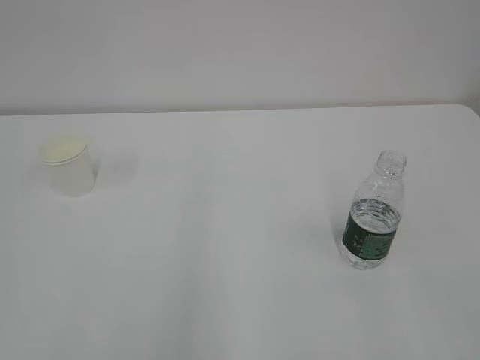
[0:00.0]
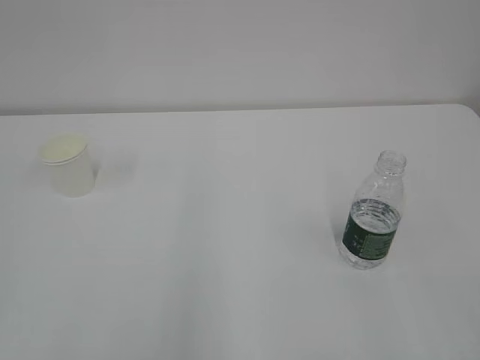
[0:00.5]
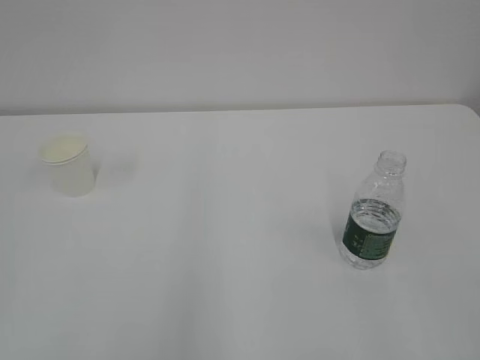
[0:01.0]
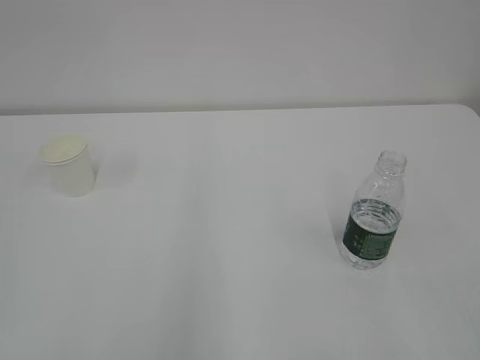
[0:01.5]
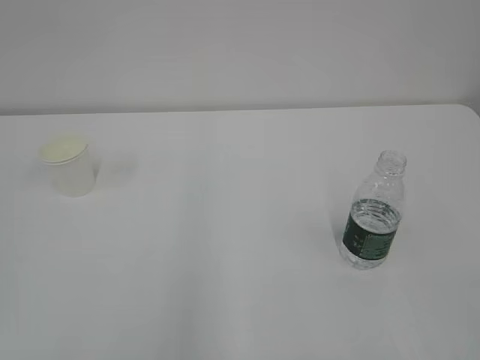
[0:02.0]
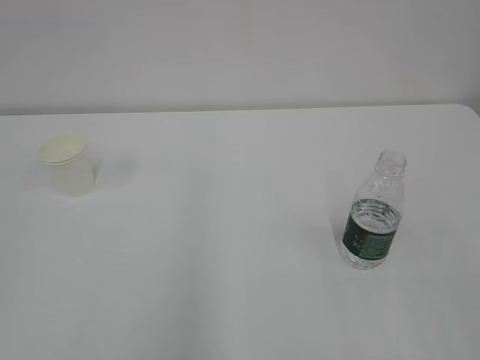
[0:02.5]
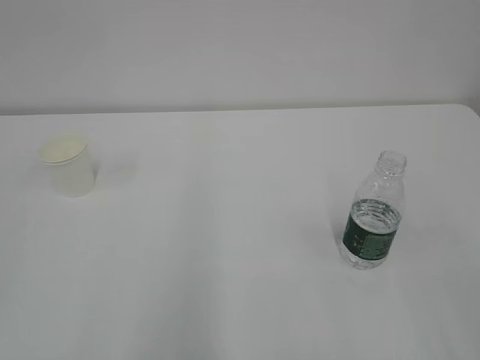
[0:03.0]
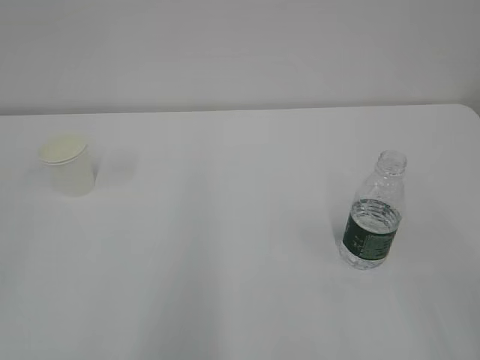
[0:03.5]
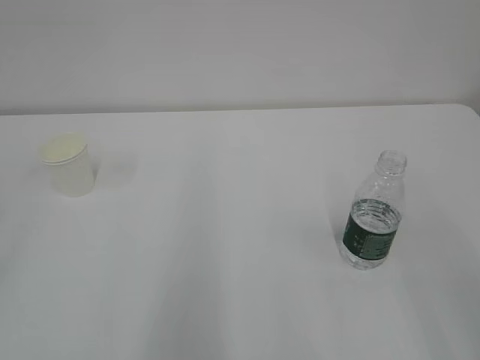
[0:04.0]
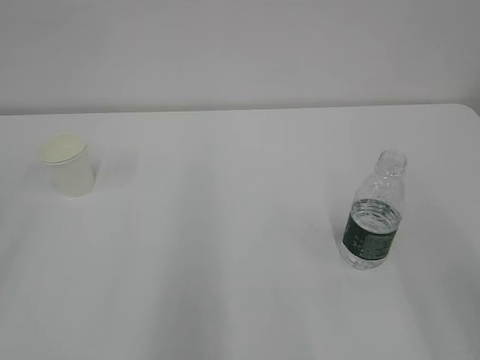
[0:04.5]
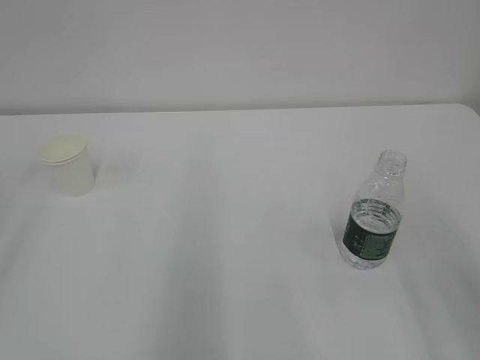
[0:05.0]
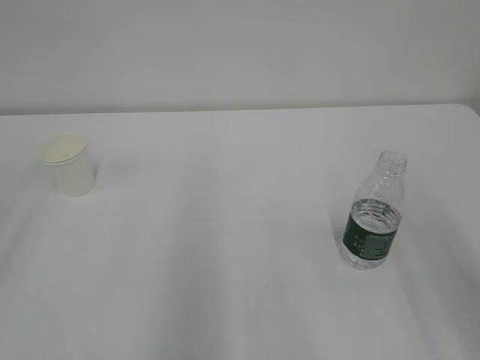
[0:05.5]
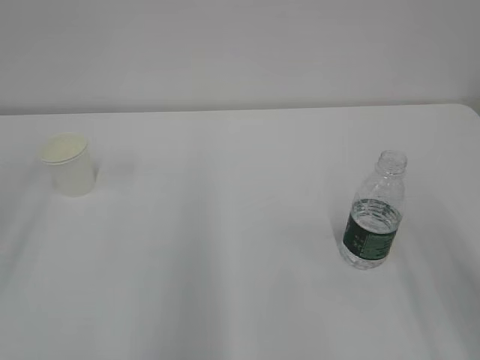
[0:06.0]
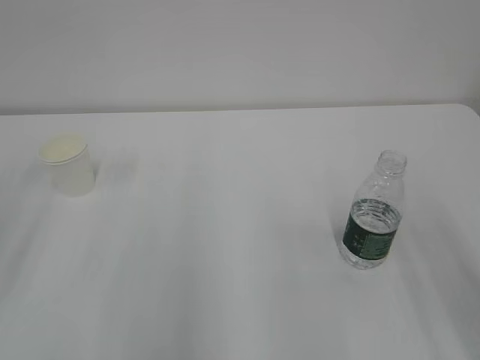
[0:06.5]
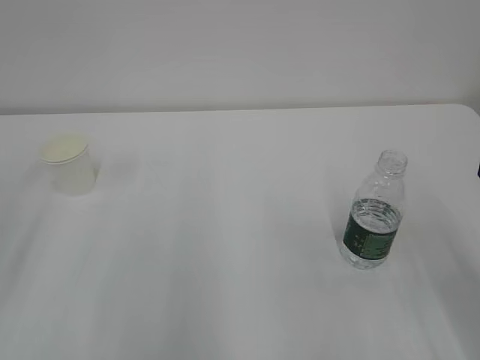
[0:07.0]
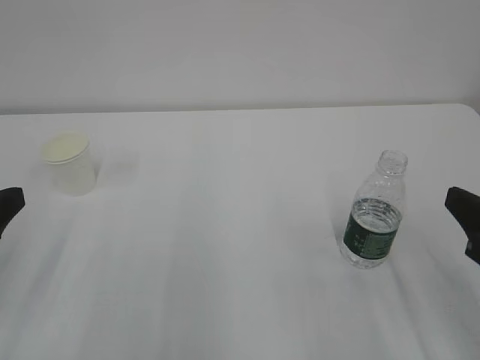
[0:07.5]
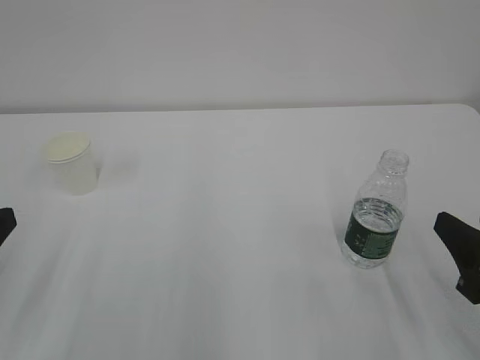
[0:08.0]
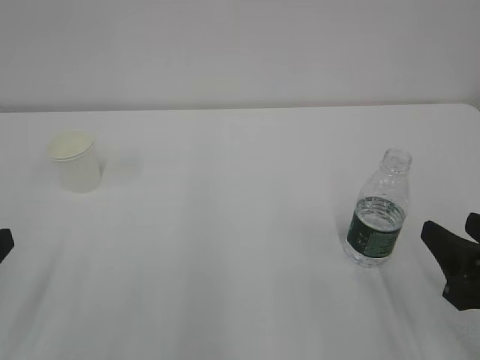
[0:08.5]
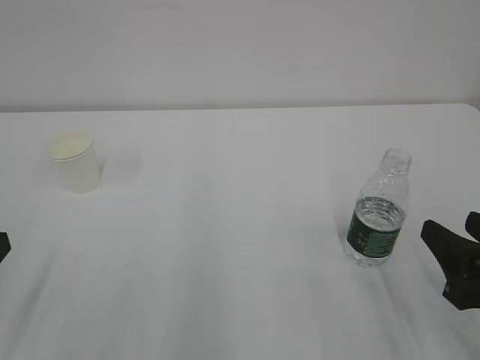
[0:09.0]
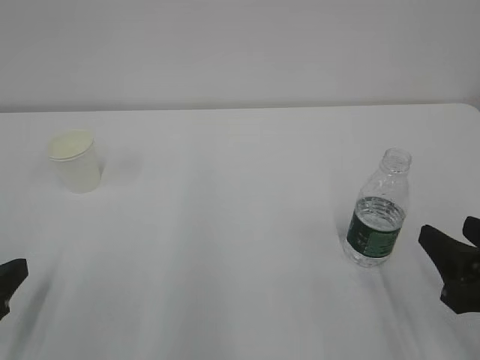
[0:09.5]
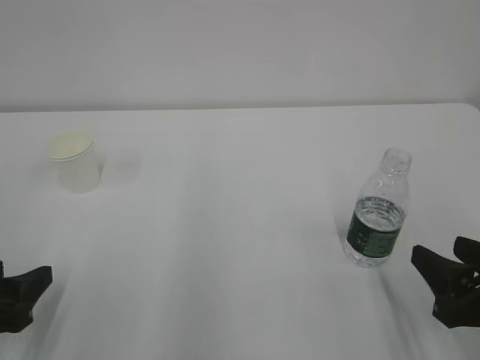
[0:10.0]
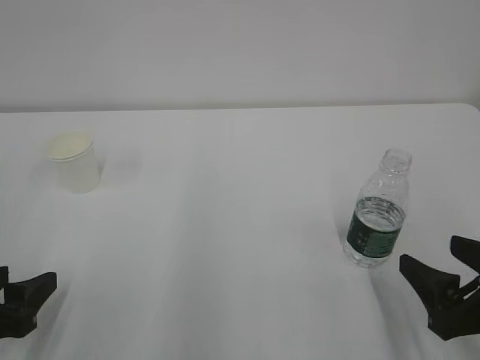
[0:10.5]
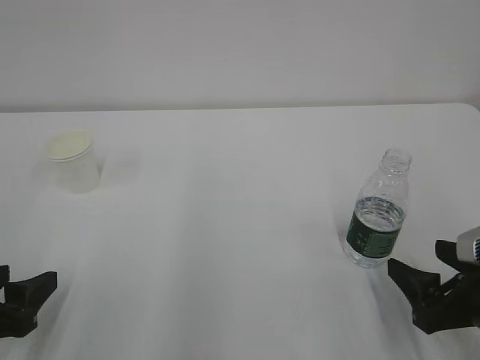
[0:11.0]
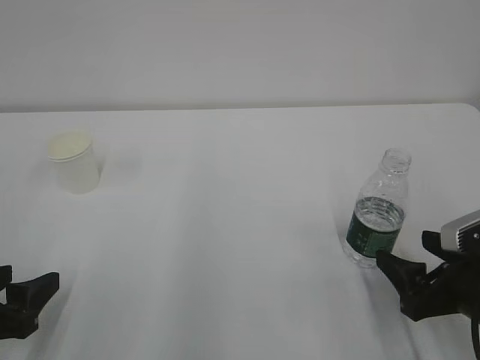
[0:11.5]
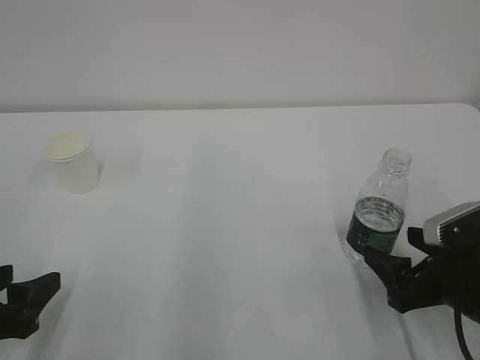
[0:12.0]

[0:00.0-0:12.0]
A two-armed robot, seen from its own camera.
6.0 to 8.0 s: The right gripper goes approximately 10 cm downward.
8.0 to 10.0 s: The left gripper travels downward by about 5 cm.
10.0 to 12.0 s: The right gripper is displaced forward by some 5 cm, and opens up.

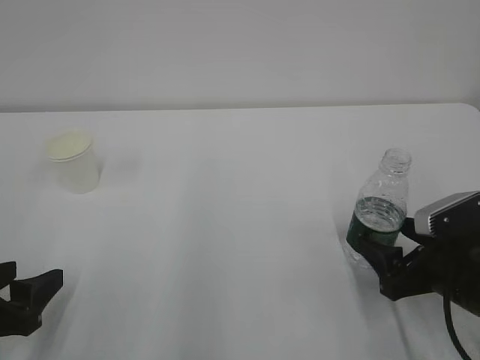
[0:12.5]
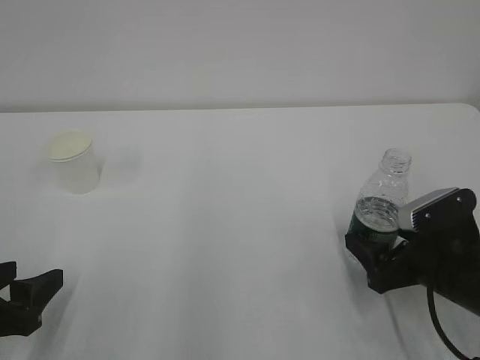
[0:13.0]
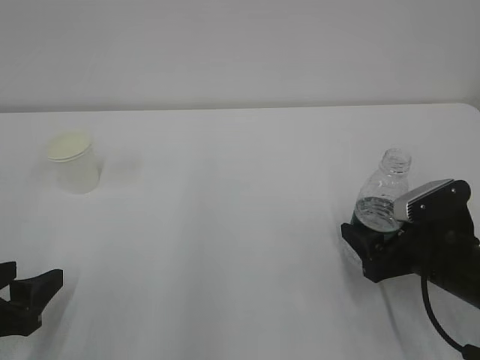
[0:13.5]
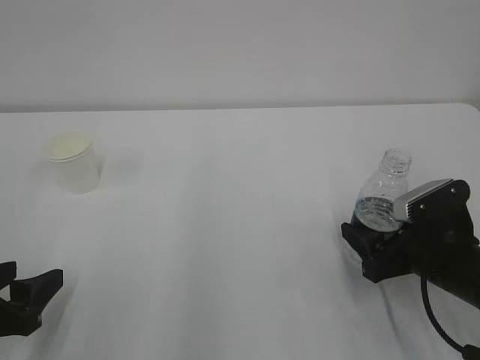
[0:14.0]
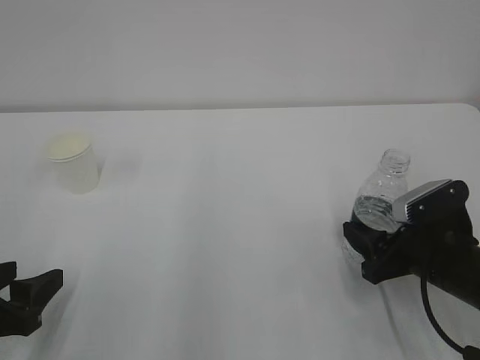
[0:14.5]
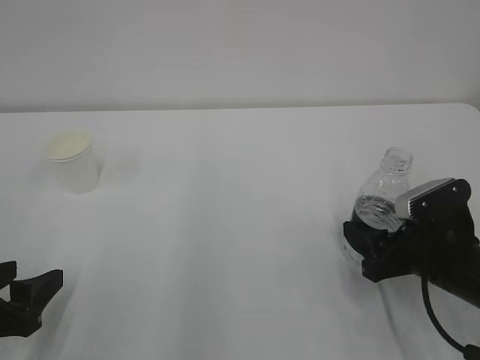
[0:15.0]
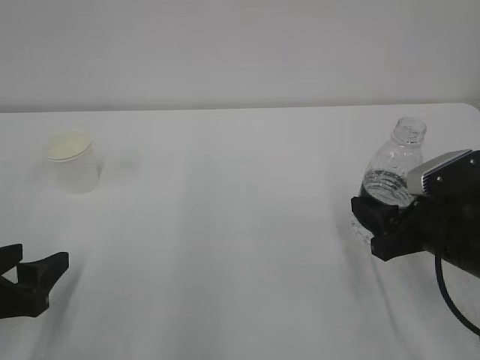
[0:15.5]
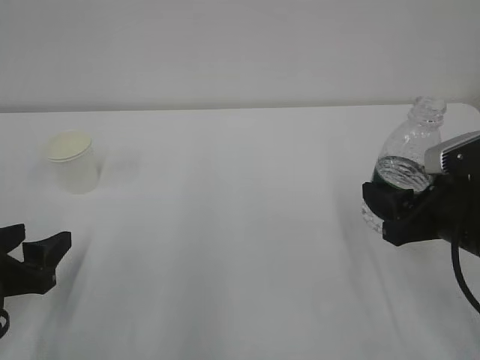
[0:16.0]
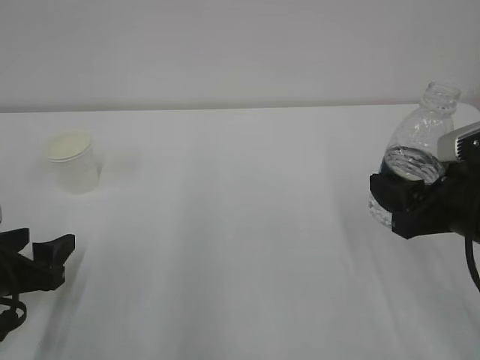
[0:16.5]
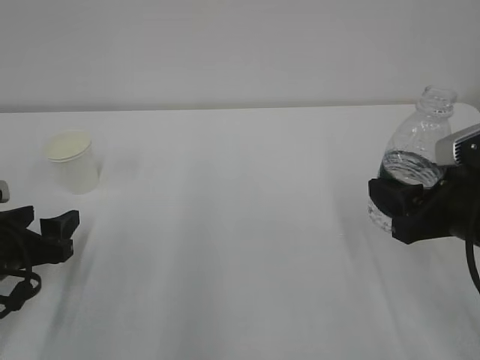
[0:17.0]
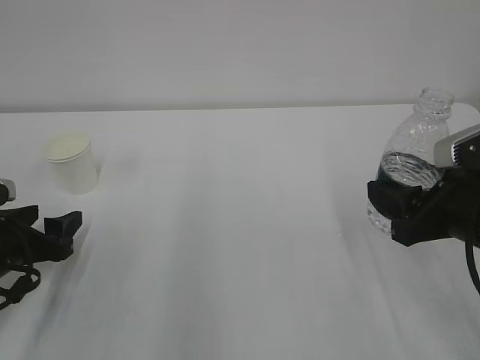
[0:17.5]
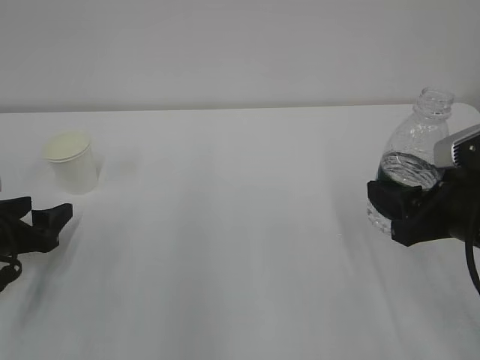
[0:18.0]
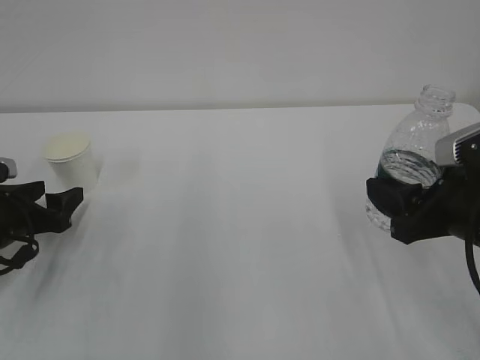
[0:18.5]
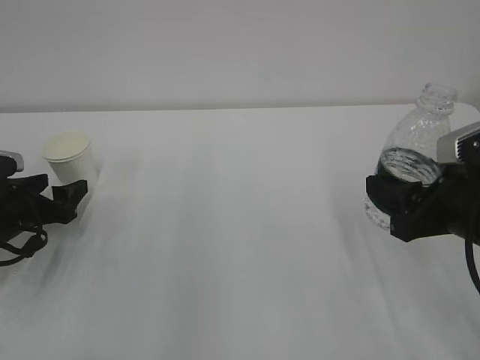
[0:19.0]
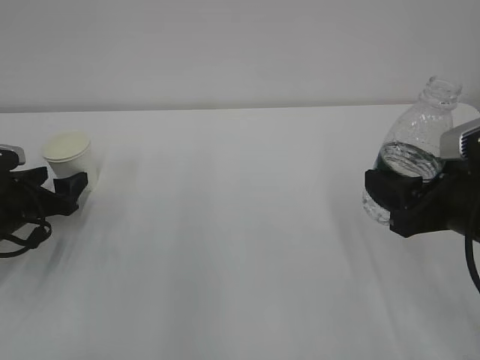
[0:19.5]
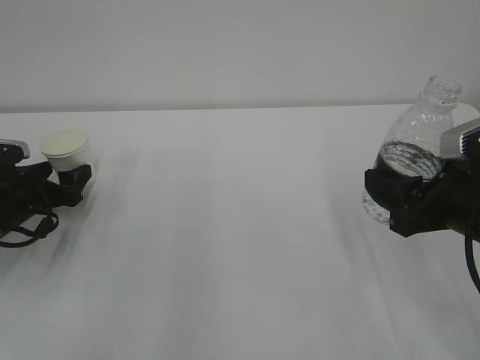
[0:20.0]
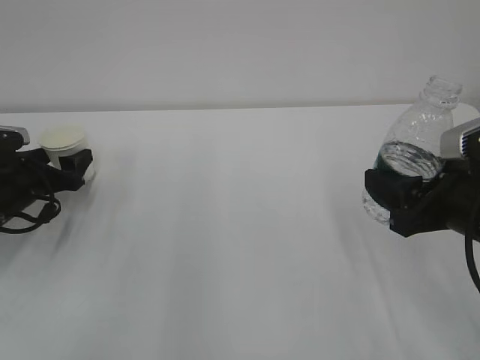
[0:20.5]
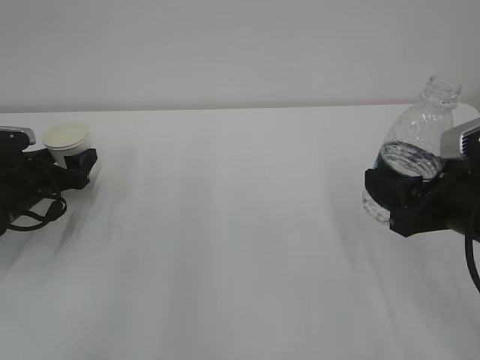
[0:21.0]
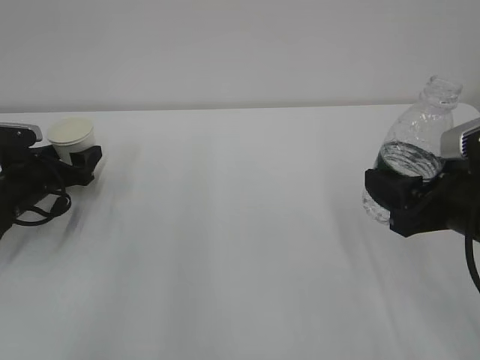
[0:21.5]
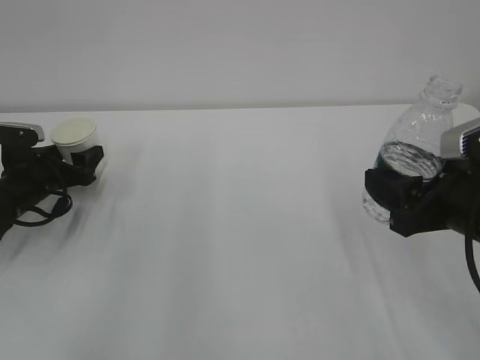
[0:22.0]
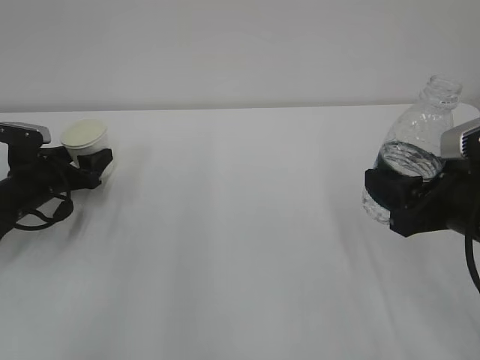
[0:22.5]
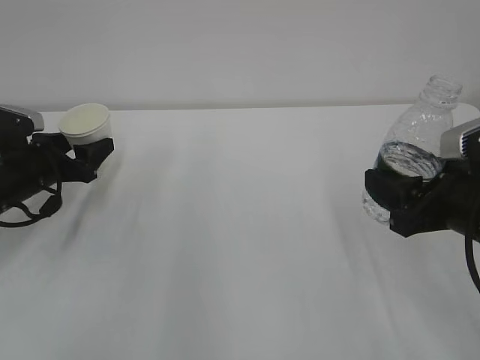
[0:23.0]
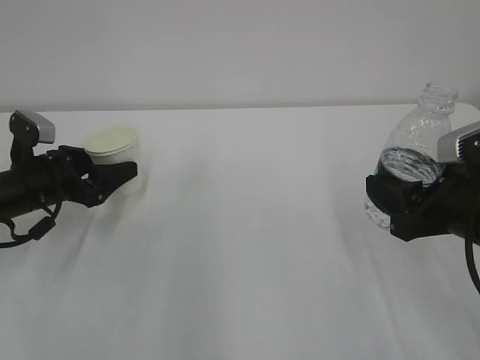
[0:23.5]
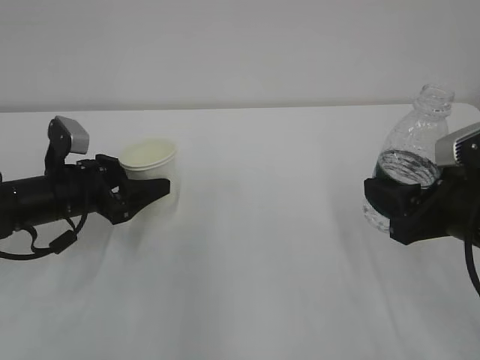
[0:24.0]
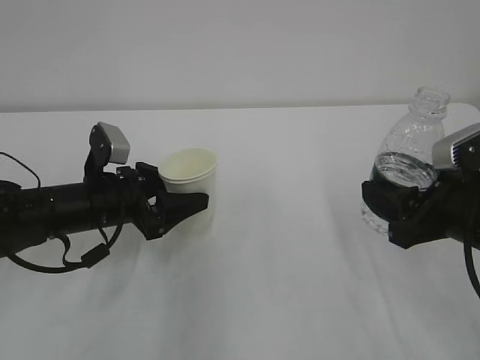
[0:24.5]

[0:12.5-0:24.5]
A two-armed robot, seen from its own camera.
12.5 to 14.5 s: The right gripper closes up.
14.5 to 16.5 s: The right gripper moves upward, about 10 cm.
16.5 to 18.5 s: The left gripper is displaced forward by approximately 10 cm.
18.5 to 20.5 s: The left gripper shifts roughly 5 cm forward.
20.5 to 22.5 s: The left gripper closes up.
22.5 to 24.5 s: The left gripper is displaced to the right and backward by about 15 cm.

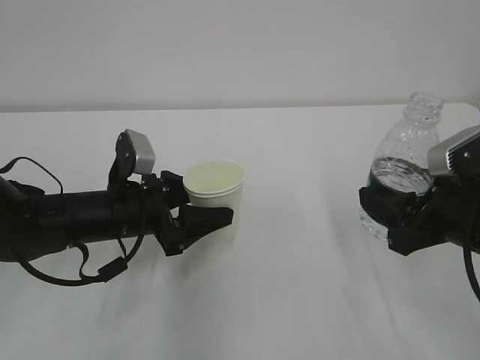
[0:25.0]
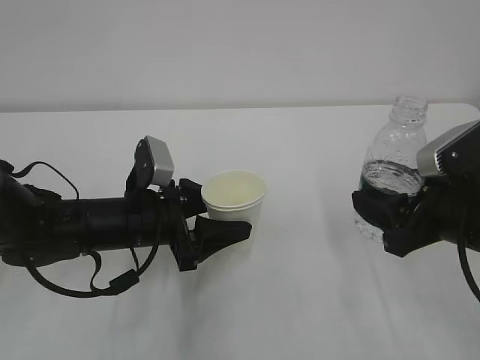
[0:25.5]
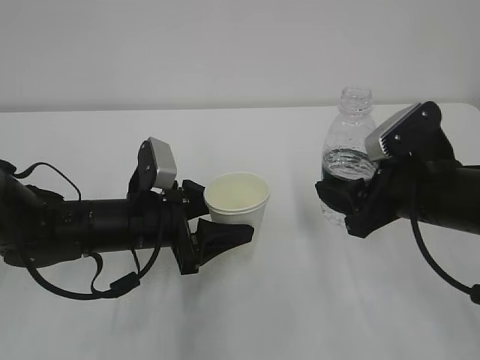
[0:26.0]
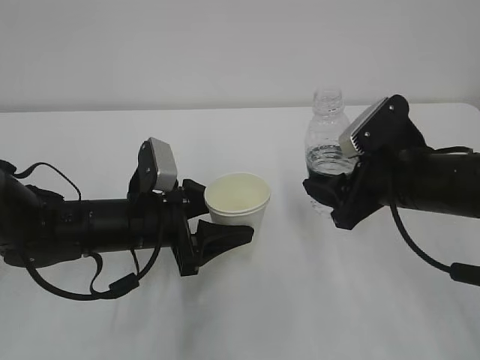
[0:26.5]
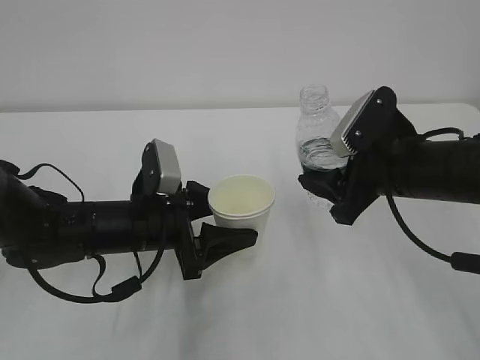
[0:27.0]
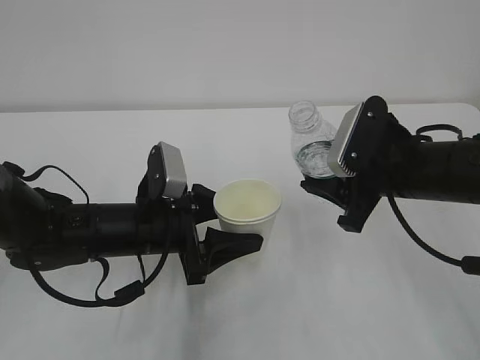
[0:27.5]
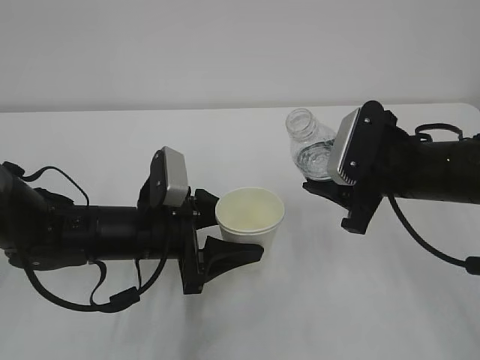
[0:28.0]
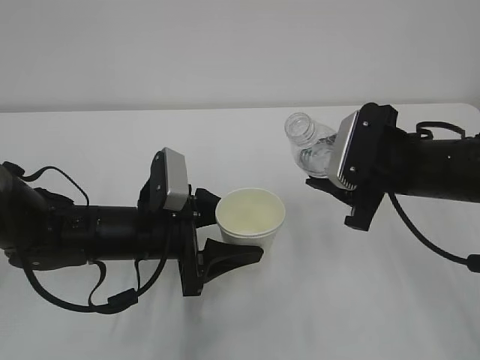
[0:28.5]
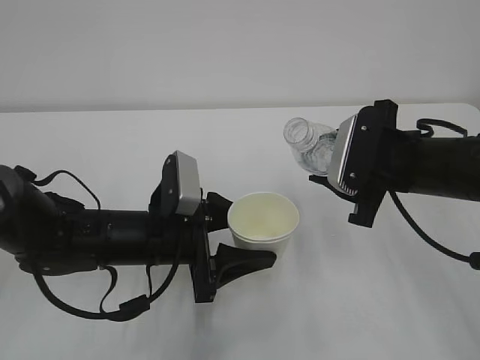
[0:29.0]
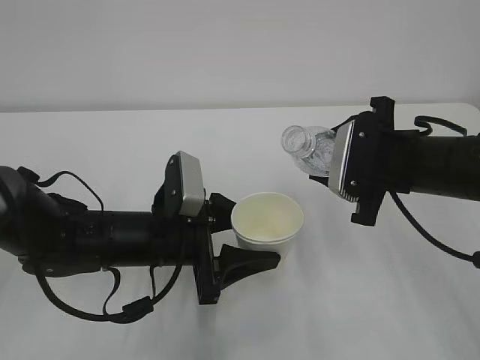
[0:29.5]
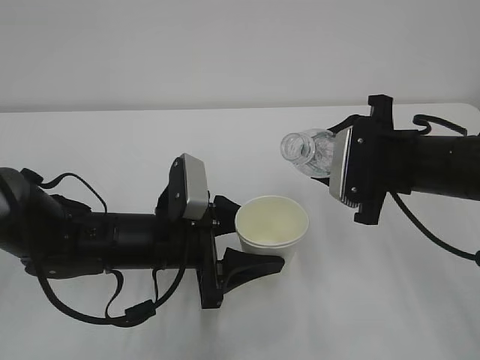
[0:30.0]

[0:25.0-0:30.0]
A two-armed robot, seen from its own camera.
25.0 to 27.5 s: The right gripper shifts some 10 cm forward.
